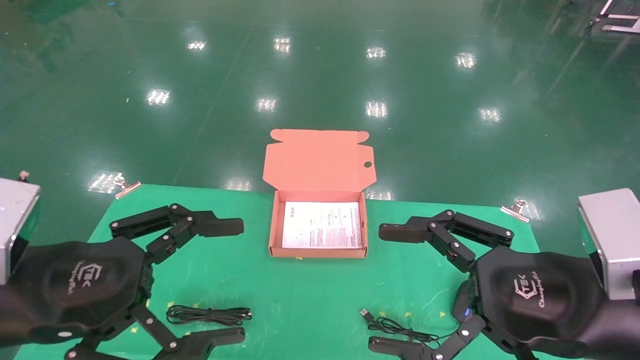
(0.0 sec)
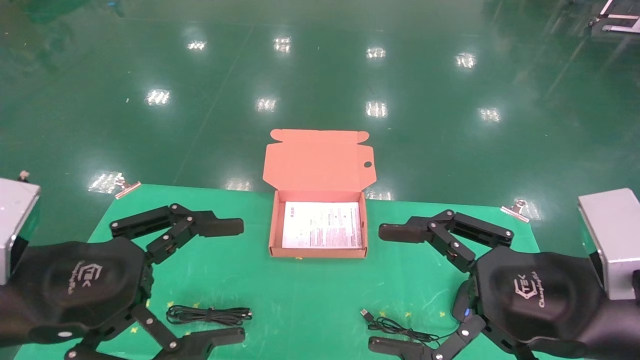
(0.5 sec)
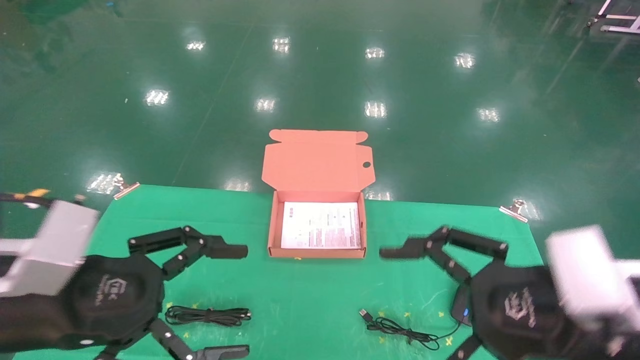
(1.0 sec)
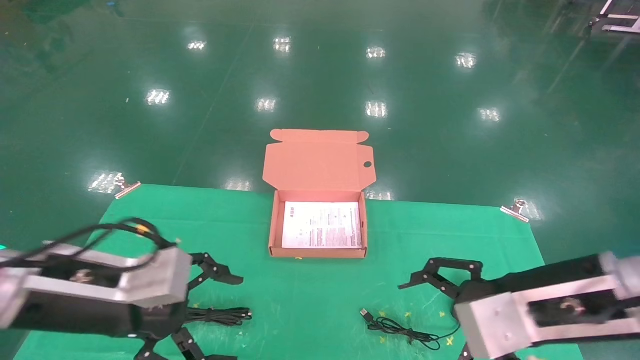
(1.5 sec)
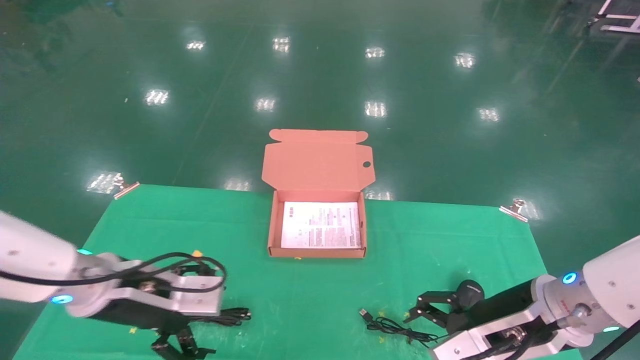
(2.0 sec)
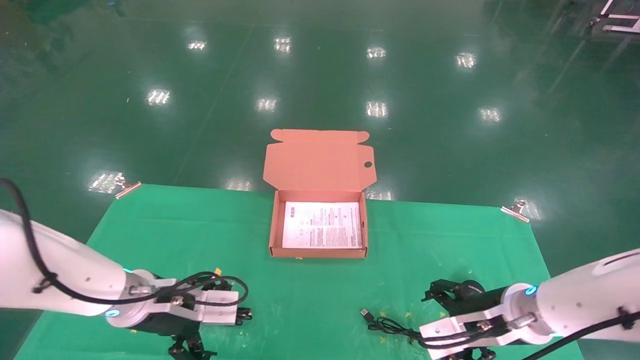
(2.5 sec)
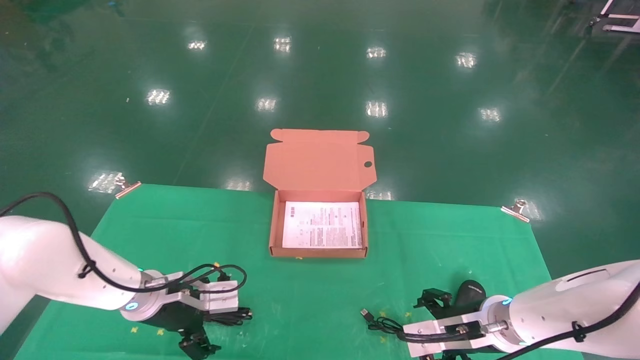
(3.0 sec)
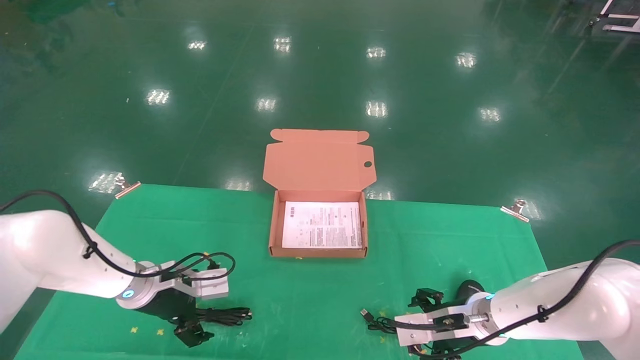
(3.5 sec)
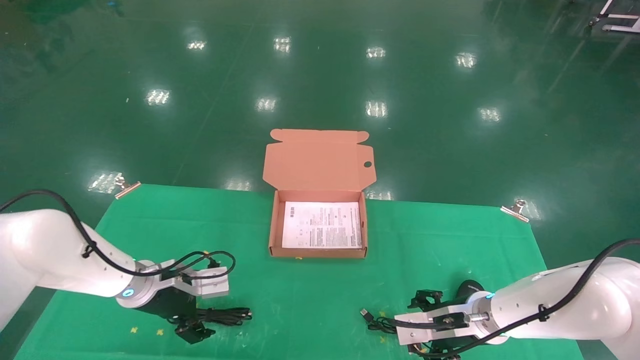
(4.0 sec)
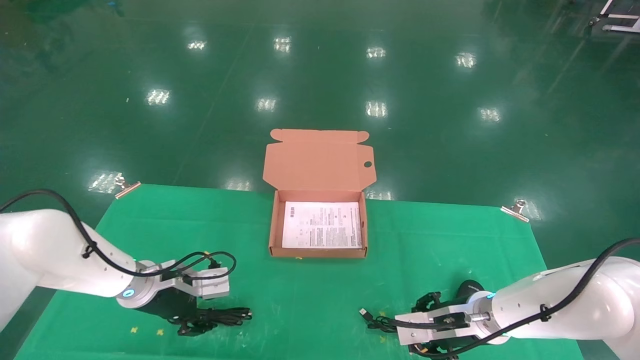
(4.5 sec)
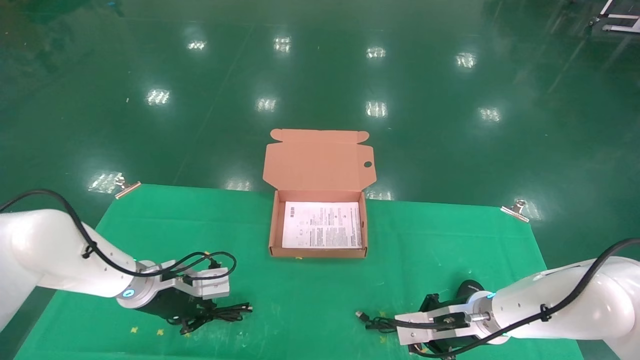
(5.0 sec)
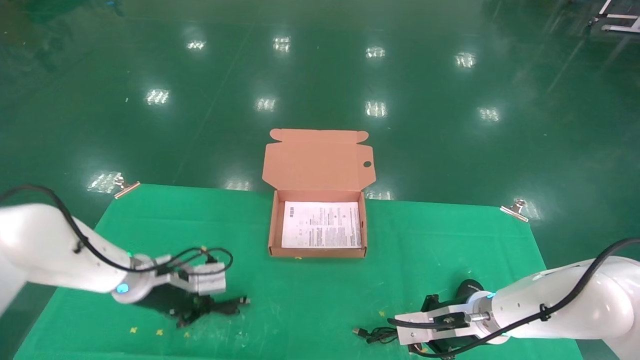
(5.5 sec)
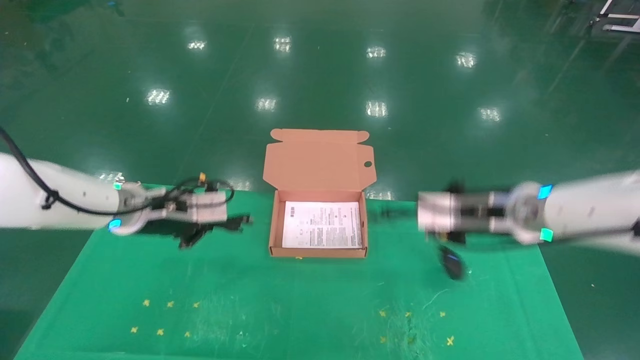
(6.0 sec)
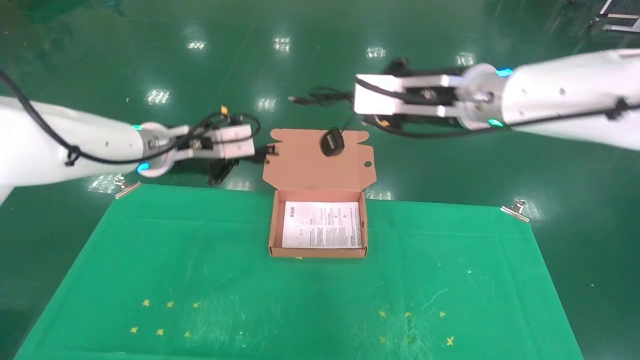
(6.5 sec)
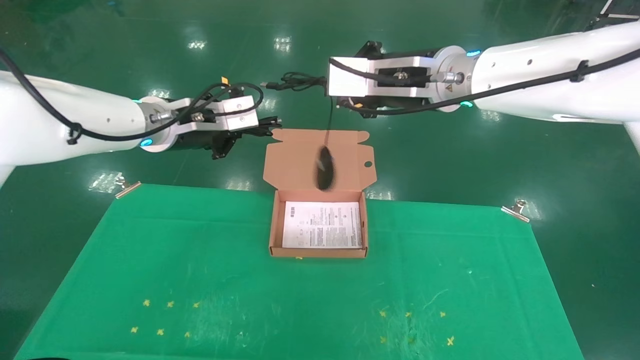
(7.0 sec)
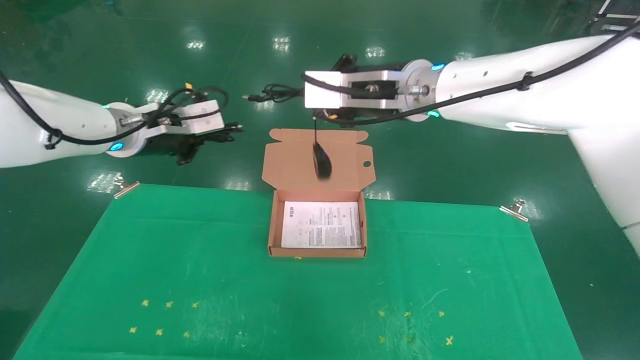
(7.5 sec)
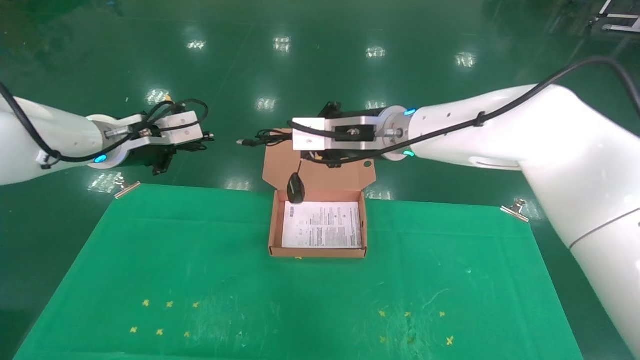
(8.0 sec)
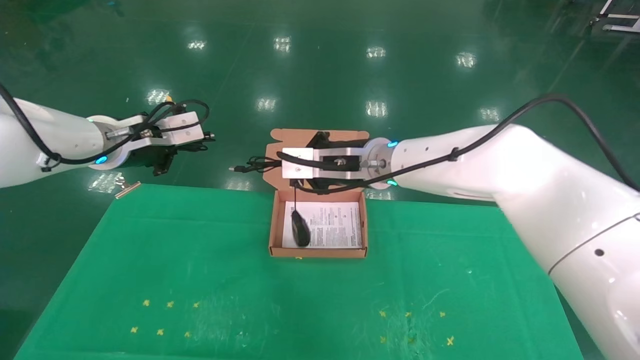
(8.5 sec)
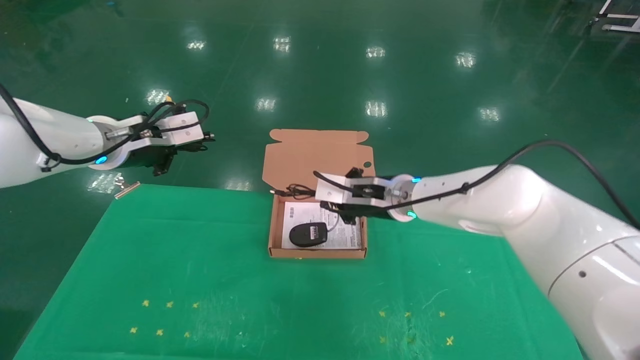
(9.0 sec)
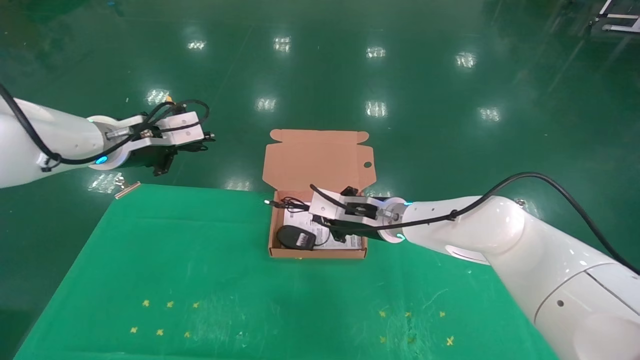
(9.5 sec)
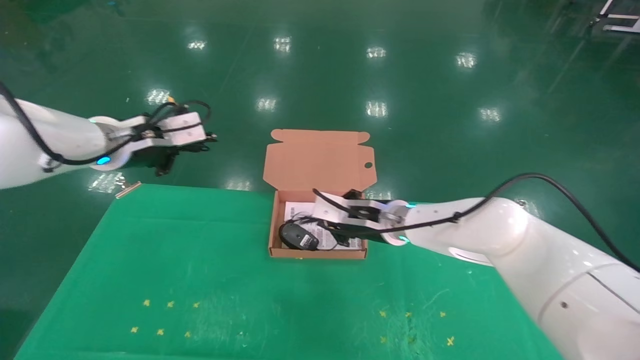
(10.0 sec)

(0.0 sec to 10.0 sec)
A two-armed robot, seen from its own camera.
Task of the whole recording: grasp data cable left put into box grasp mouse right put into box.
Step, 1.0 sec - 5.5 sec: Grab and pick up both the mouse and power cord from the accessory packaging area at the same time.
0.0 sec - 2.0 sec: Both grippers move forward and downward, about 15 cm.
2.0 sec - 4.0 sec: The right gripper travels downward and forward by roughly 15 cm, while the left gripper shifts roughly 10 cm forward and downward.
4.0 sec - 6.0 sec: The two grippers go about 15 cm upward. The left gripper closes its fingers, while the right gripper closes its fingers.
6.0 sec - 8.0 sec: The left gripper is displaced upward by some 10 cm. Meanwhile the right gripper goes roughly 20 cm to the left and upward.
8.0 sec - 10.0 sec: The right gripper shifts approximately 15 cm downward.

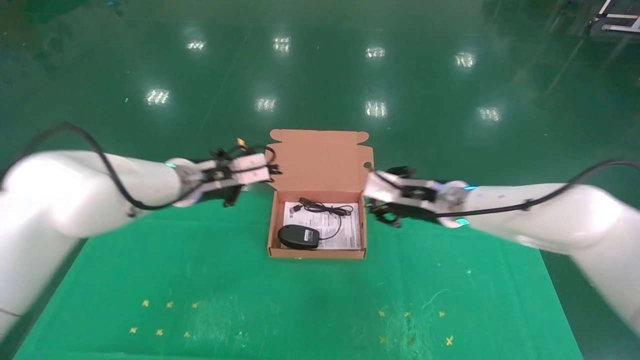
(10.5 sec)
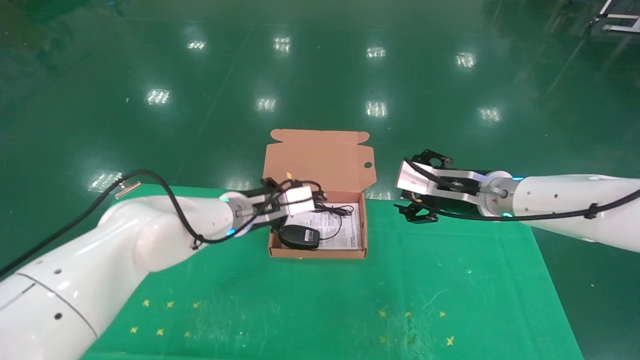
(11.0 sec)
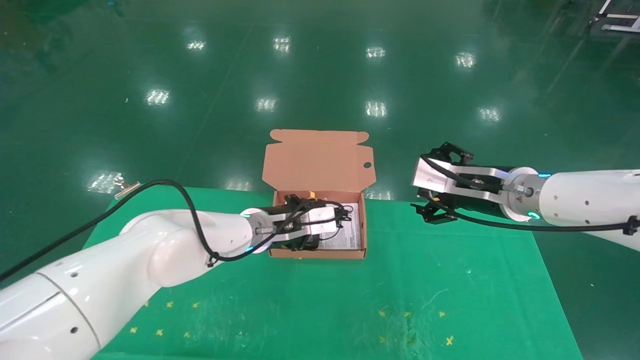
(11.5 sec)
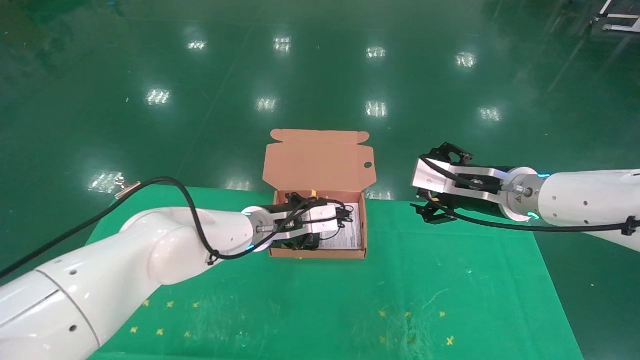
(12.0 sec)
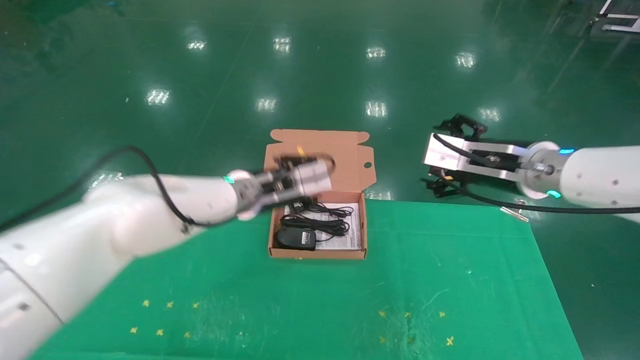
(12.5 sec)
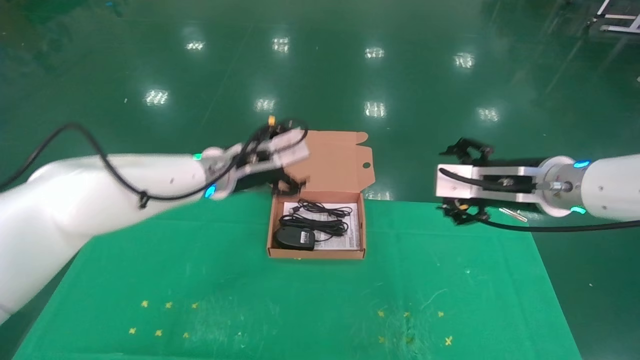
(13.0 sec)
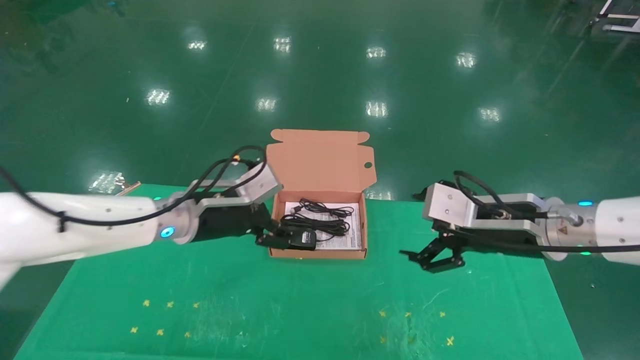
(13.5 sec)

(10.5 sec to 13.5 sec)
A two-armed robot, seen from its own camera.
Task of the whole recording: grasp data cable left put into box grasp mouse right put into box.
Step, 10.5 sec - 13.0 sec: Place the mouse and power cord into the box.
10.5 sec - 12.0 sec: The left gripper moves to the right and downward, roughly 15 cm. The right gripper shifts about 10 cm to the right and backward, and opens its fingers.
12.0 sec - 13.5 sec: The right gripper travels backward by approximately 5 cm. The left gripper moves to the left and backward, about 10 cm, and opens up.
